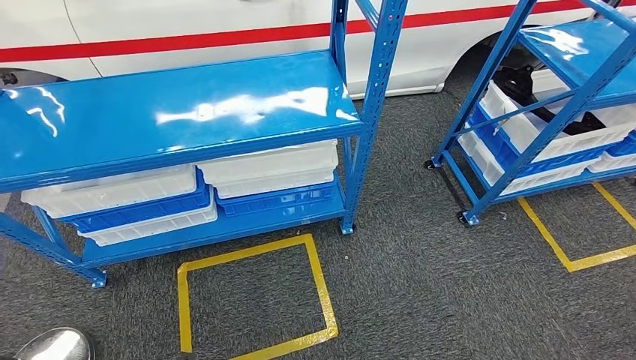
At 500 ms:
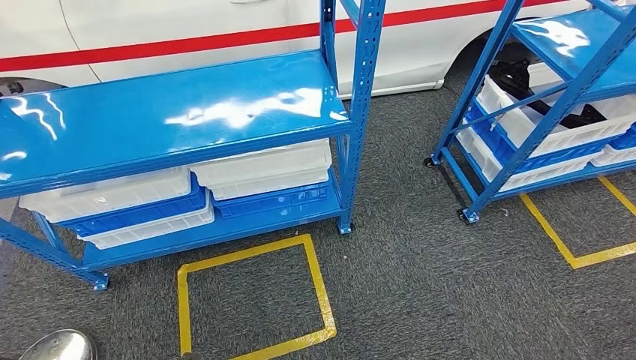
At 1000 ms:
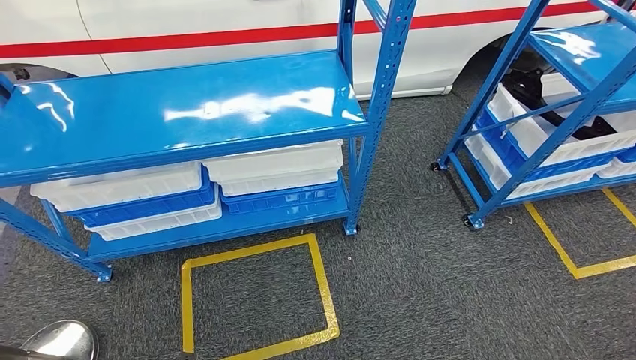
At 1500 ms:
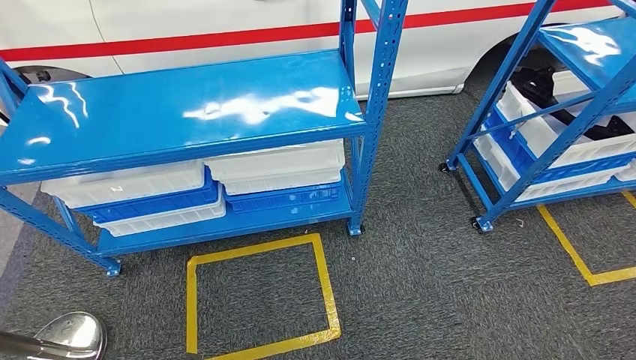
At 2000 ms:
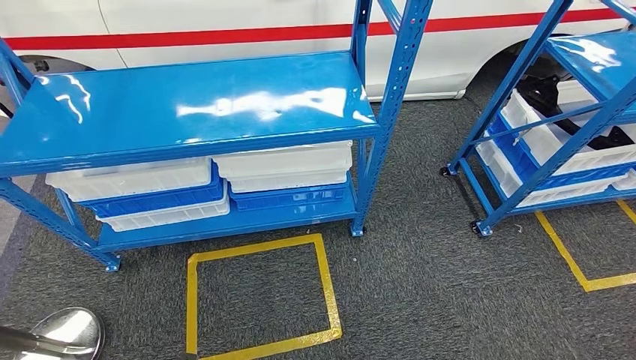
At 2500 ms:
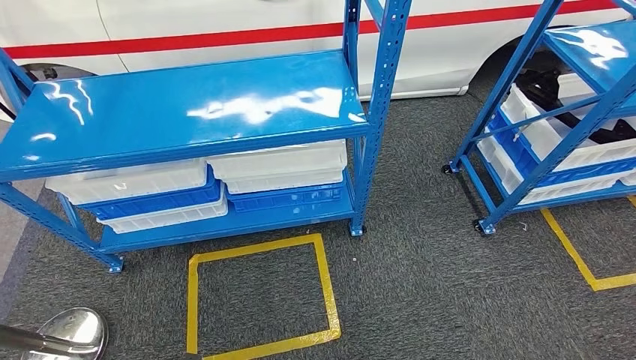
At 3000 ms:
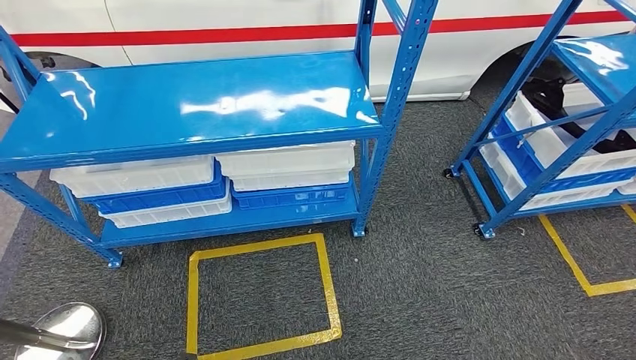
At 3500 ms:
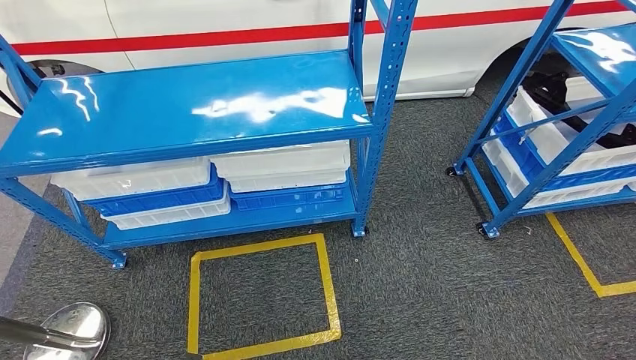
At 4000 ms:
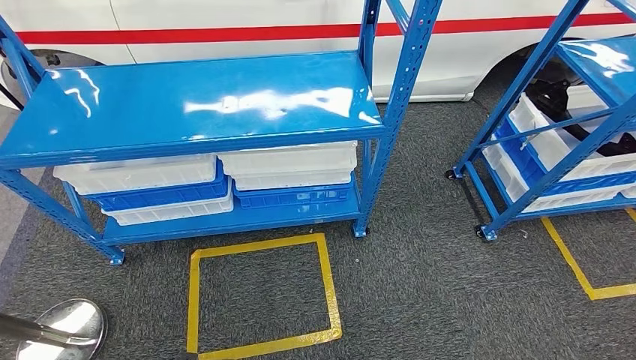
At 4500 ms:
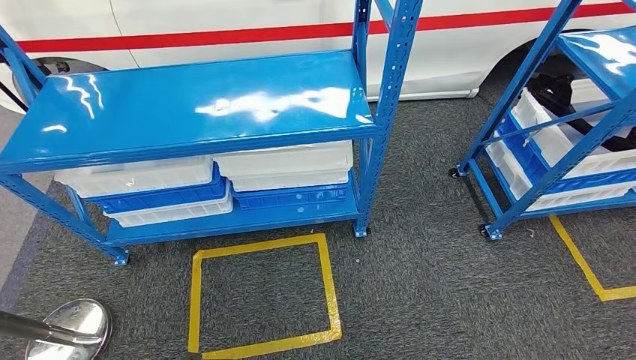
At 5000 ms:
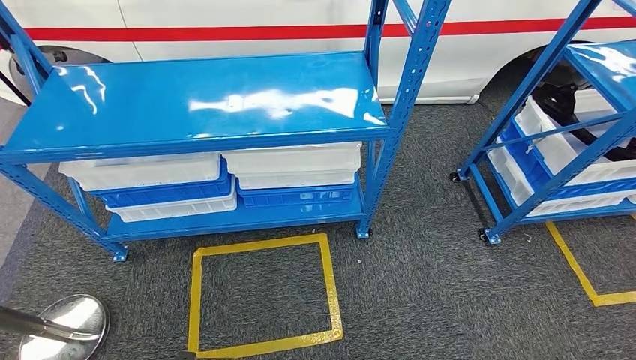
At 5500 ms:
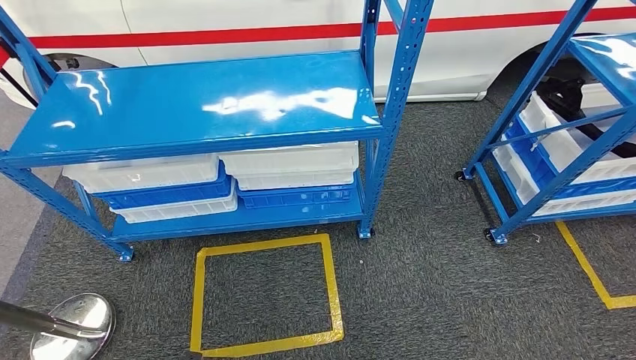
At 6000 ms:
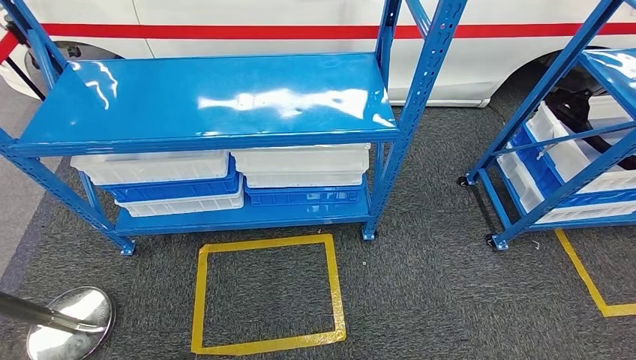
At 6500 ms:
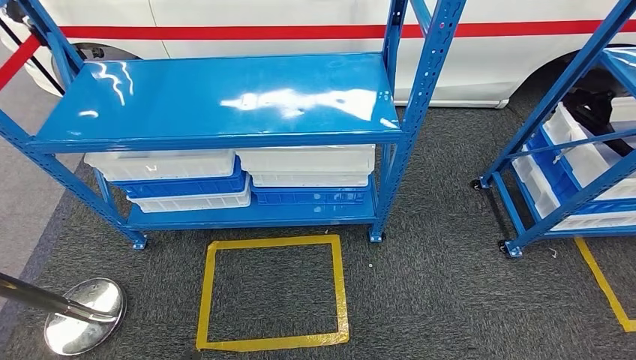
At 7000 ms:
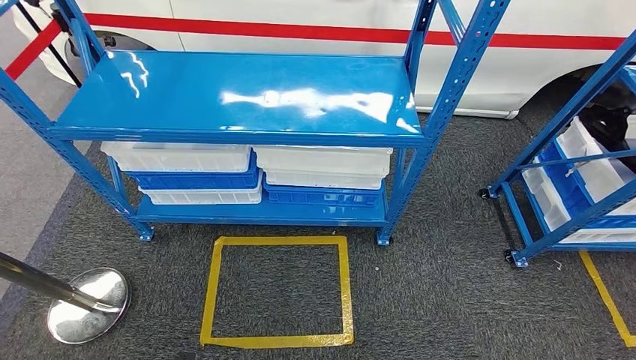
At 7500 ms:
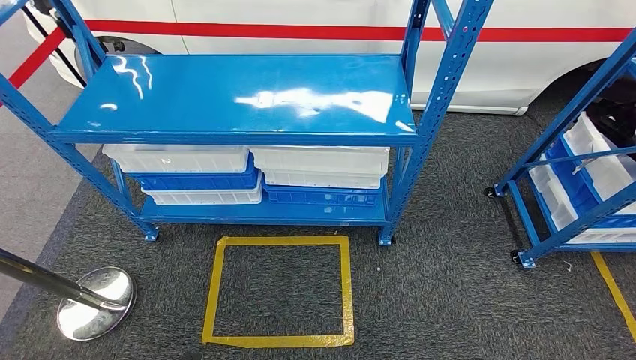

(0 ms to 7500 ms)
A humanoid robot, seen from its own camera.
Step, 0 ms - 7500 ms: Move to the initial position of the shelf.
